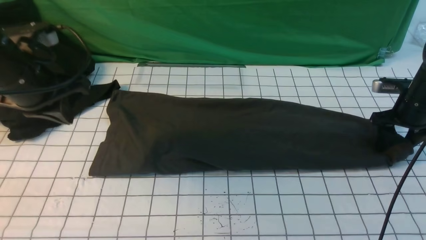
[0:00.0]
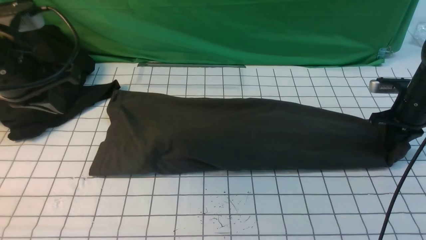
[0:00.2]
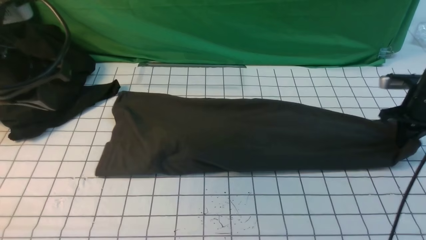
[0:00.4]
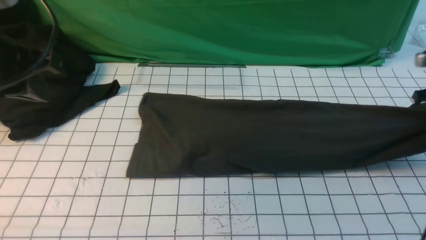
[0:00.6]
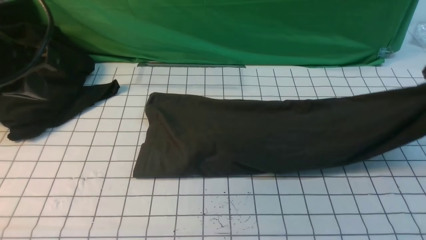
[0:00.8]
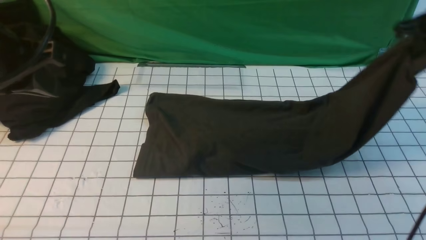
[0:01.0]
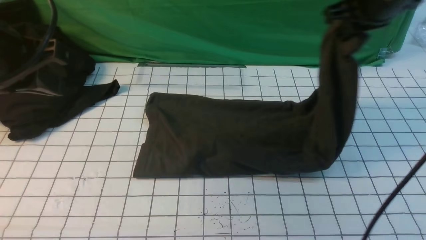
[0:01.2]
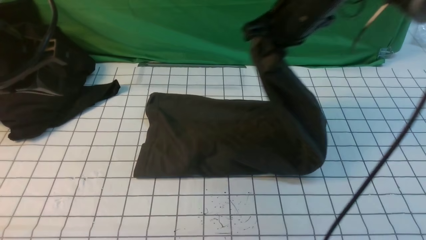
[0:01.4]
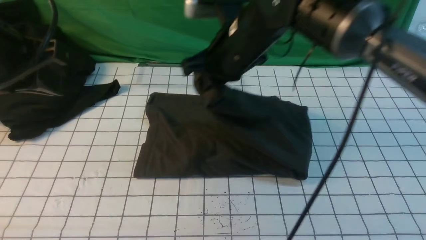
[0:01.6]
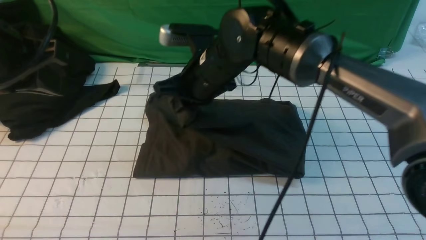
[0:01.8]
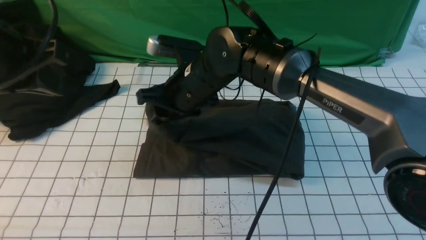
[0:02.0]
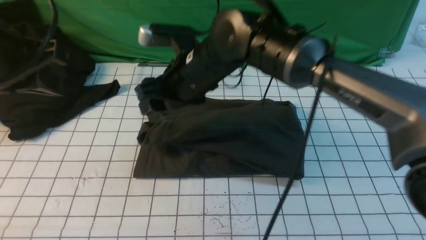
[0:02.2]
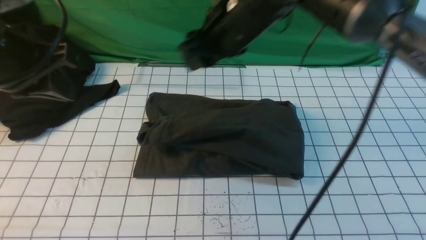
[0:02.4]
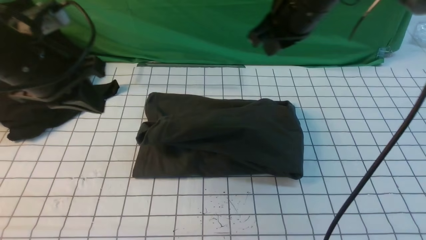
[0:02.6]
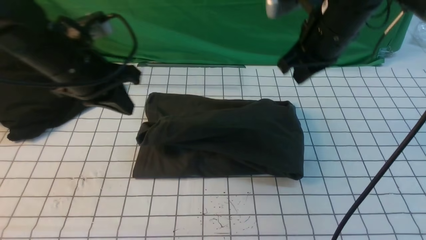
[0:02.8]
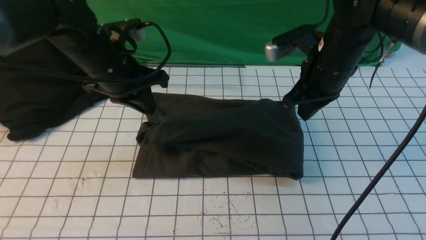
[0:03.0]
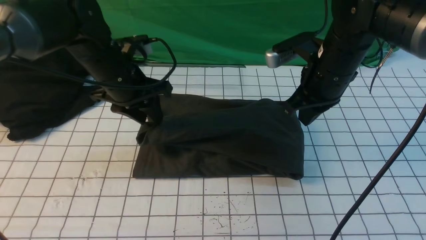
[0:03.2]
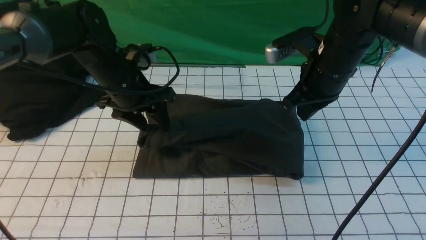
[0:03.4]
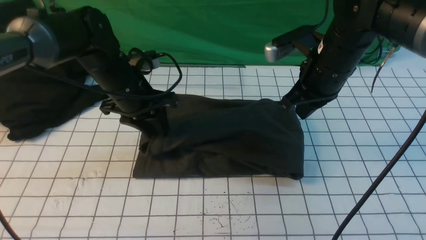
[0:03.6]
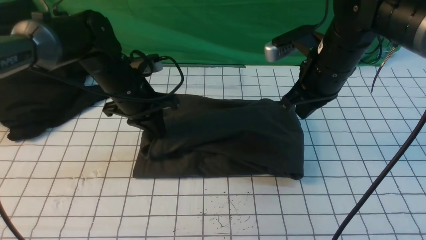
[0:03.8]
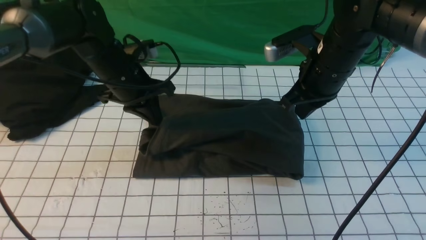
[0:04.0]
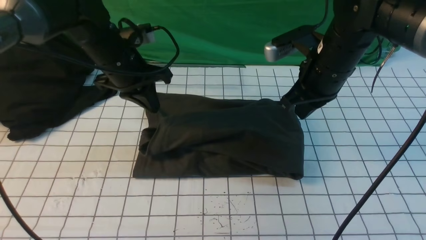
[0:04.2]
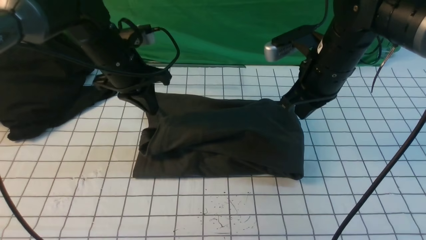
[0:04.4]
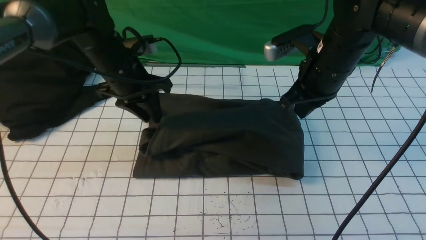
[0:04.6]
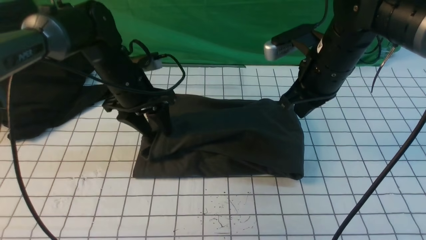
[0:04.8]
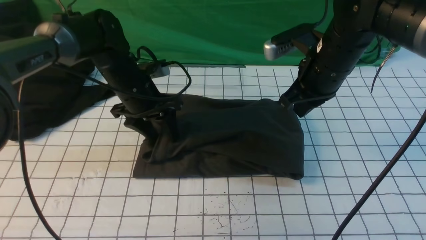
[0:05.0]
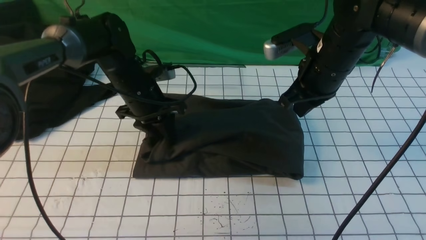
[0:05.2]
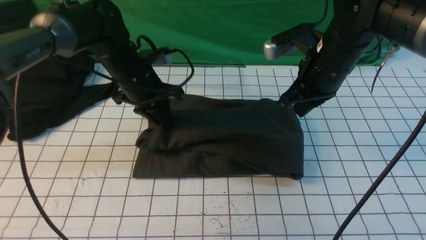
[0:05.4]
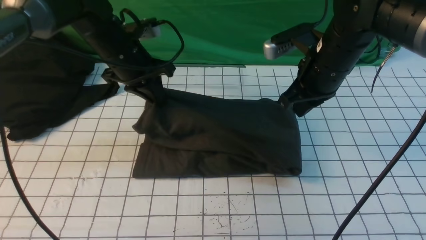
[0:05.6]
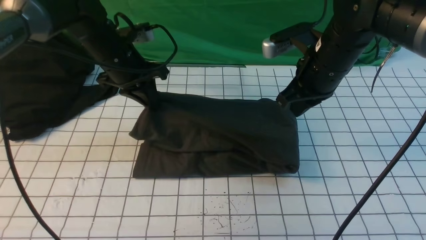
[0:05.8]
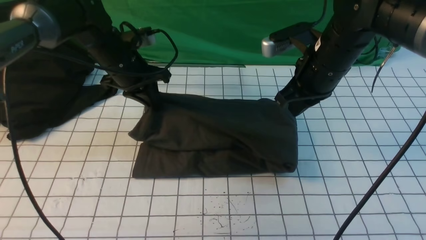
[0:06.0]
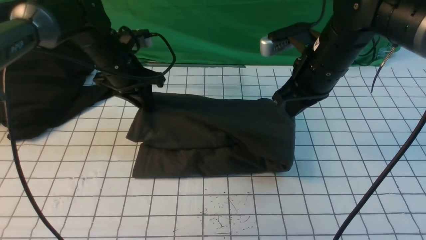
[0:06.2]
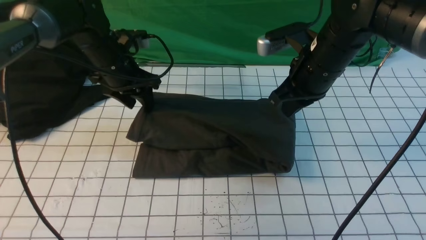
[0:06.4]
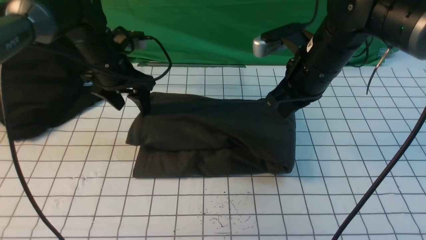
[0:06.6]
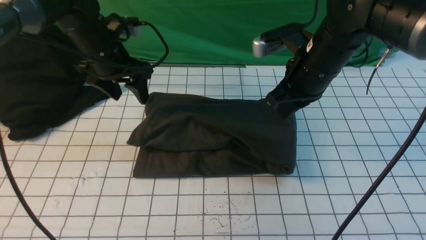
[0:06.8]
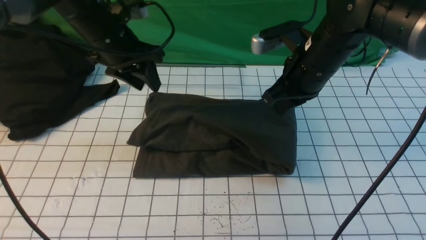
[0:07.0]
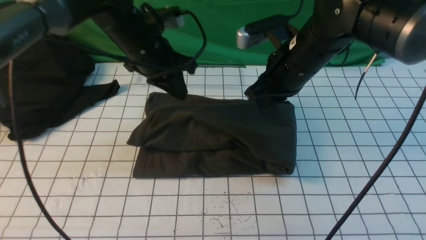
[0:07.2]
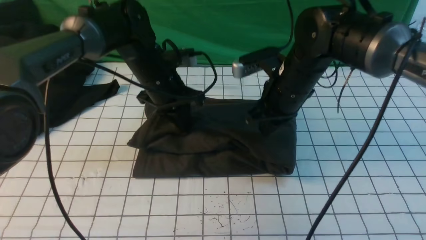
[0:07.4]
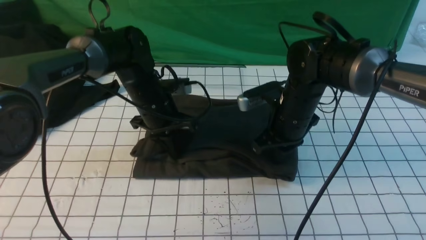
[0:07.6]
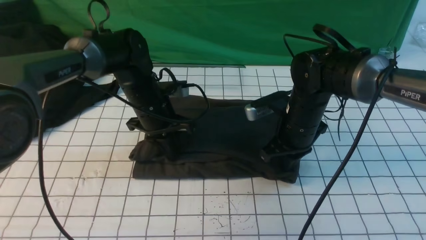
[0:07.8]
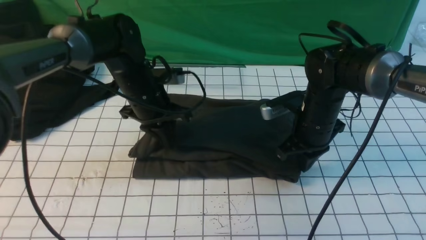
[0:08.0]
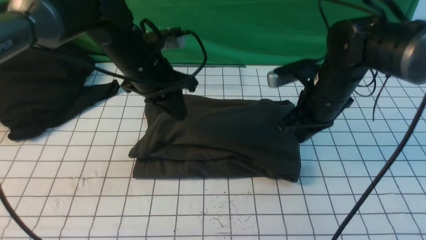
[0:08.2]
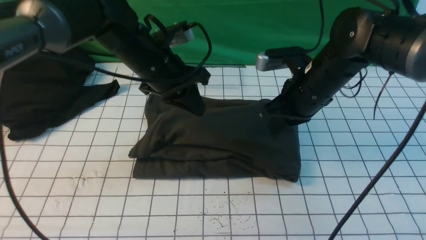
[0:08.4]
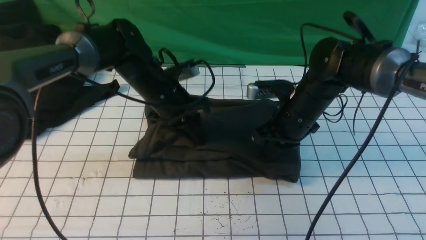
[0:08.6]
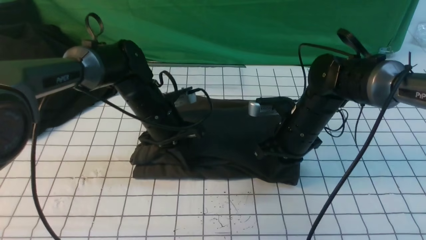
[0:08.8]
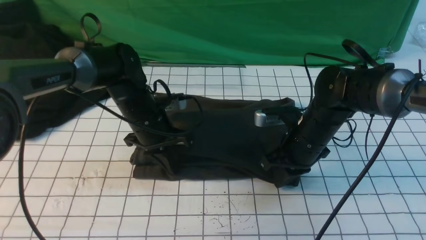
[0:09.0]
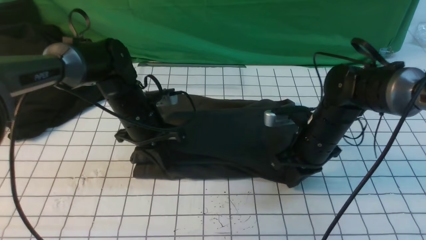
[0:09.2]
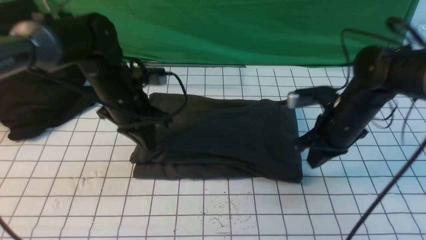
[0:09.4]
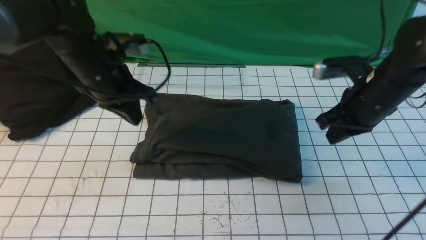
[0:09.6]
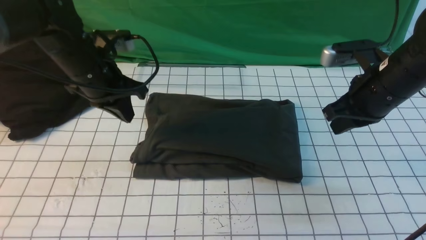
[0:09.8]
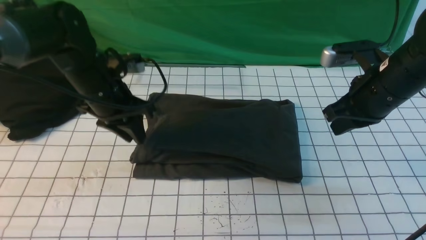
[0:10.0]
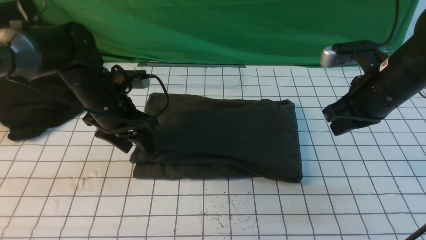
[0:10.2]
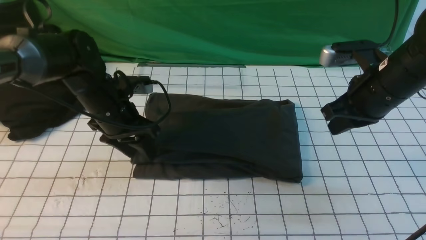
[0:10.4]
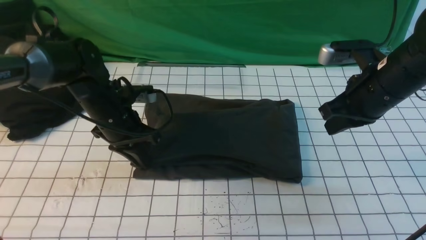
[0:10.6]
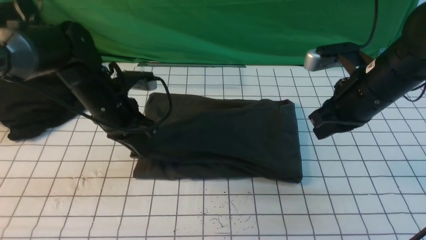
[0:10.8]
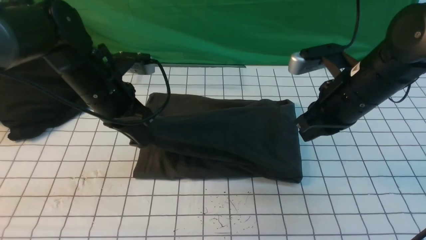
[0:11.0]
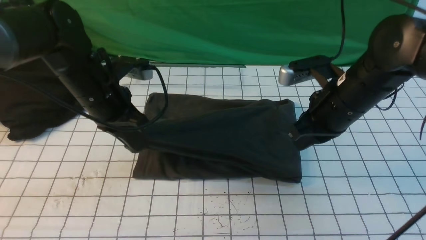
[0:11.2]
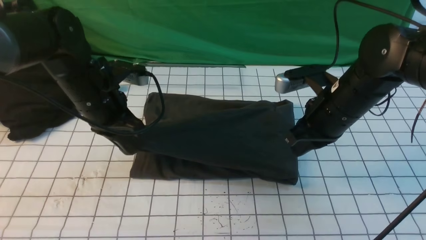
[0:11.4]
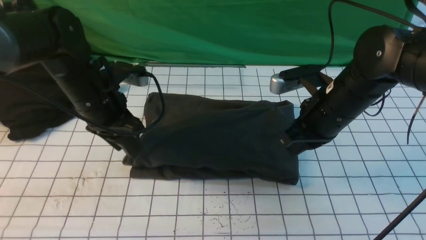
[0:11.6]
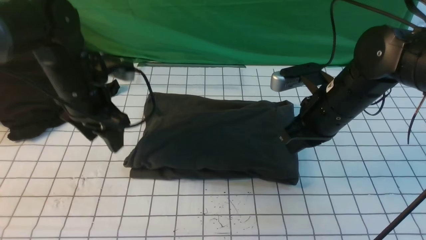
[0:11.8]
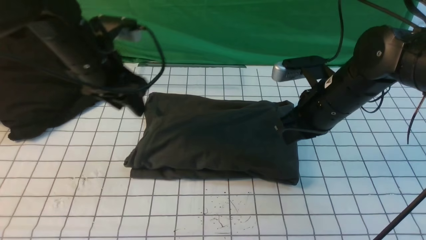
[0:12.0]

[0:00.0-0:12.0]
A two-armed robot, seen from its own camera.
Step, 0:00.4 to 0:02.0: use the right arm to drag the right edge of the fabric to the left and folds it over the left edge.
0:00.0 to 0:01.6: The right gripper moves to the left and upward, approximately 35 cm, and closes, while the left gripper travels upward and backward by roughly 10 cm.
0:01.6 to 0:03.0: The right gripper travels to the right by some 15 cm, and opens, then closes again, while the left gripper goes approximately 20 cm forward, downward and to the right.
0:03.0 to 0:04.4: The left gripper opens, then closes once more.
0:04.4 to 0:06.0: The left gripper opens, then closes again.
0:06.0 to 0:07.6: The right gripper moves downward, about 10 cm. Meanwhile the left gripper heads to the right and downward, covering about 10 cm, and opens and closes again.
0:07.6 to 0:09.0: The right gripper changes place by approximately 5 cm; the left gripper travels upward and back again, about 5 cm each way.
0:09.0 to 0:10.4: The left gripper shifts approximately 5 cm to the left, goes upward and returns, approximately 10 cm each way, and opens its fingers; the right gripper is displaced upward and to the right by roughly 15 cm.
0:10.4 to 0:12.0: The left gripper shifts about 10 cm upward, and closes and opens again; the right gripper moves to the left, some 5 cm.

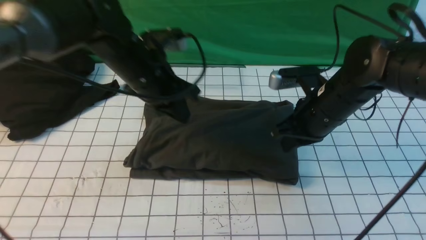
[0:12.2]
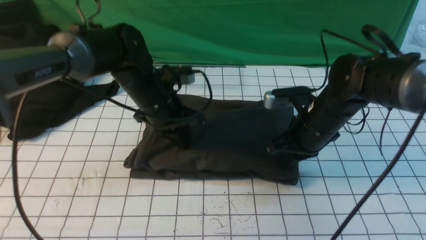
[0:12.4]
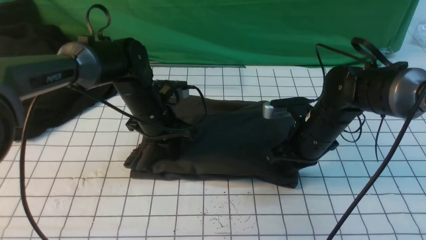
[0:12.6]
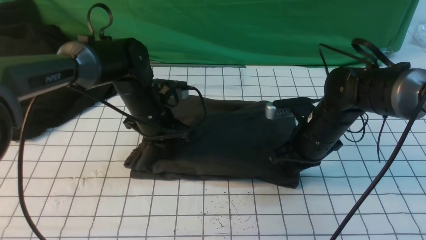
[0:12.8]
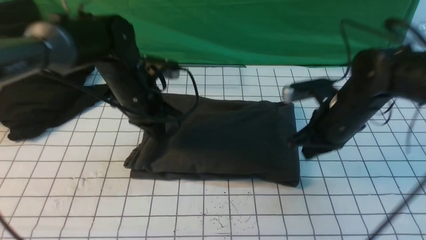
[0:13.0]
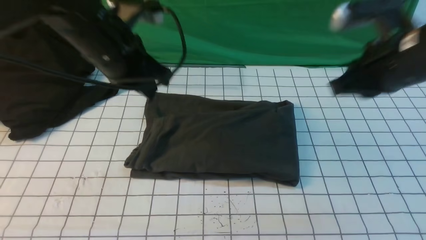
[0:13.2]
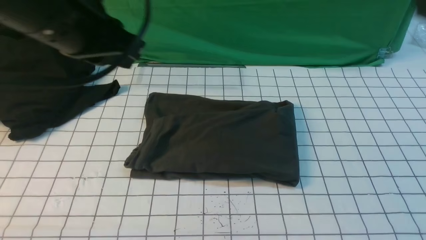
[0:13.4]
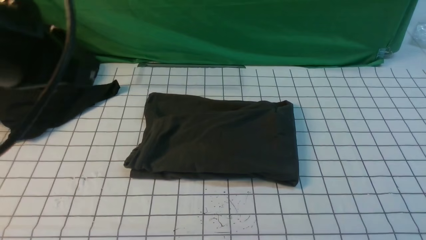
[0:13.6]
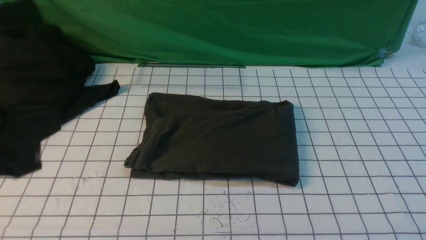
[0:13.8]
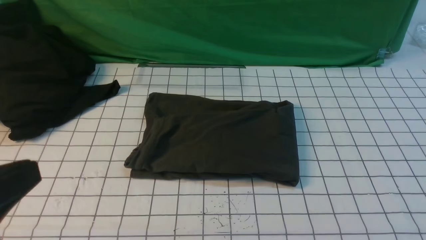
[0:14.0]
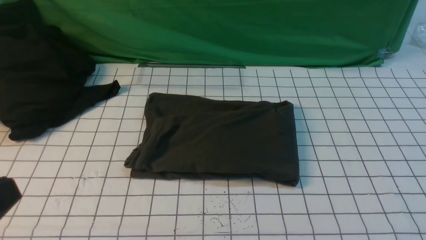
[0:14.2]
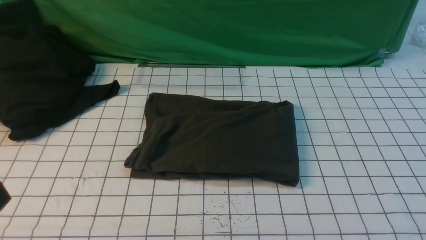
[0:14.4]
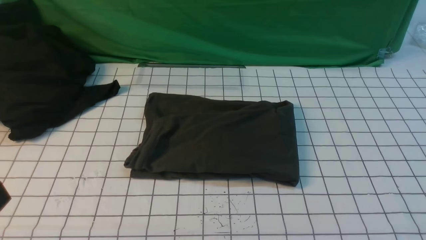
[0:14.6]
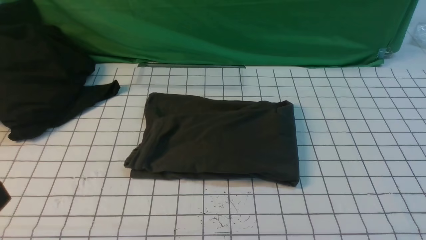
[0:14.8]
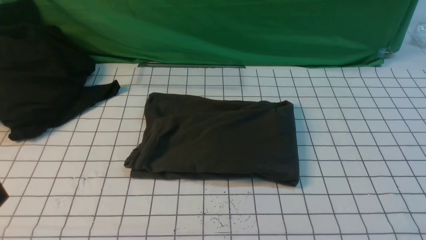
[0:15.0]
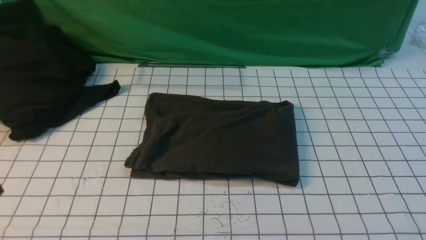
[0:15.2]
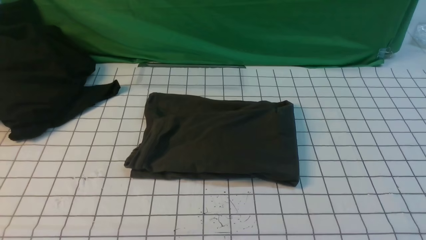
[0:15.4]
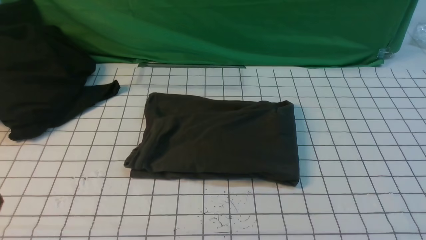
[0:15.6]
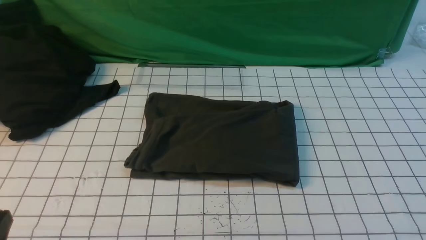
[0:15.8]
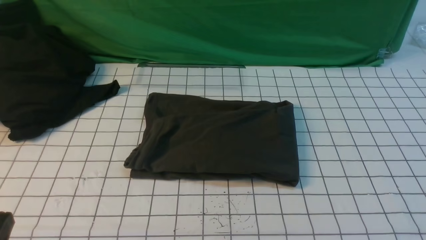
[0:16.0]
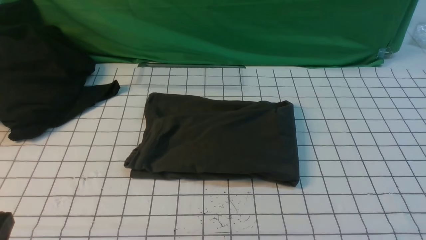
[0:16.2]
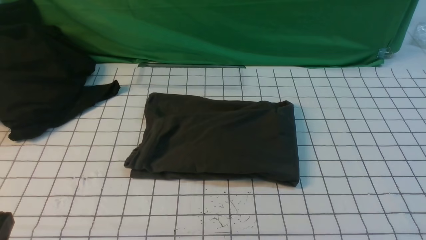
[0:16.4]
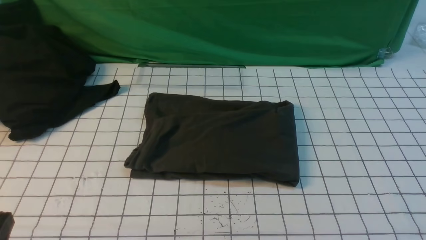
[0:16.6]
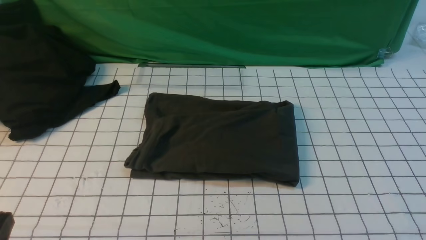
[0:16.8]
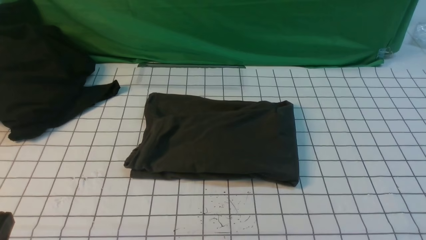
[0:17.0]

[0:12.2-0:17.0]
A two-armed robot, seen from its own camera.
0:12.2 to 0:13.8: The left gripper moves backward and upward, about 30 cm, while the right gripper heads backward, upward and to the right, covering approximately 40 cm.
0:13.8 to 0:15.4: The left gripper travels downward and backward by some 10 cm.
